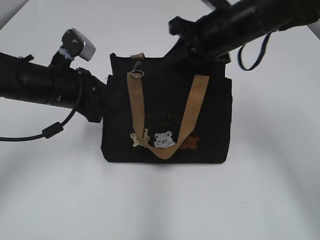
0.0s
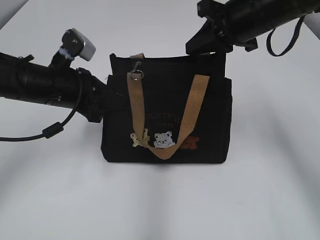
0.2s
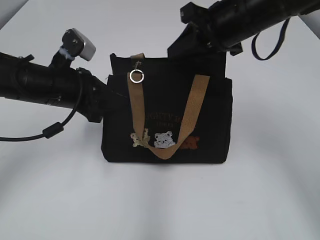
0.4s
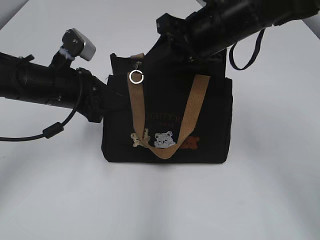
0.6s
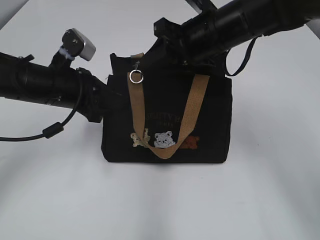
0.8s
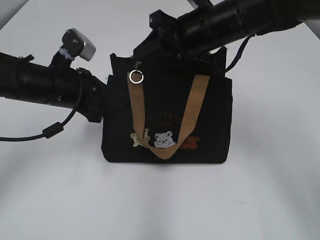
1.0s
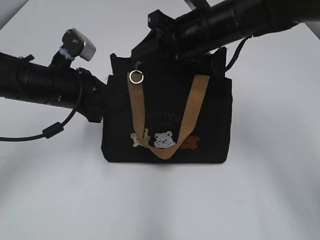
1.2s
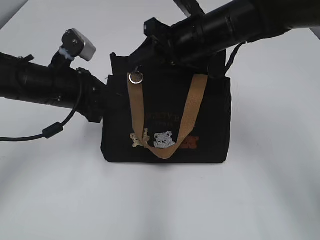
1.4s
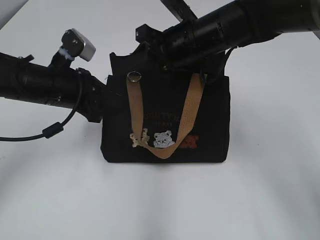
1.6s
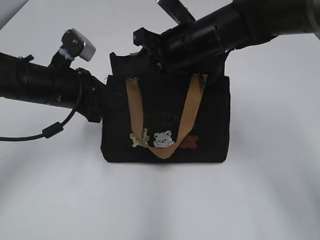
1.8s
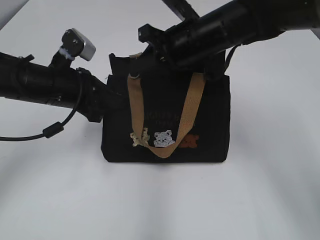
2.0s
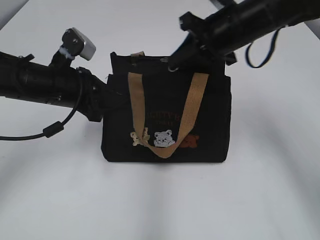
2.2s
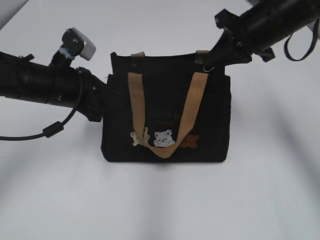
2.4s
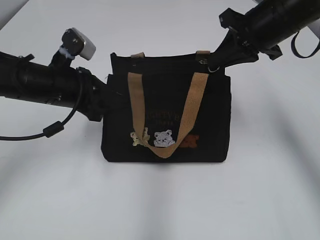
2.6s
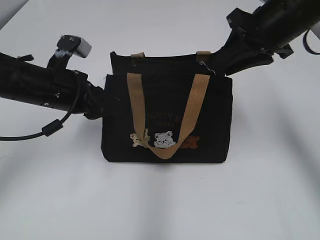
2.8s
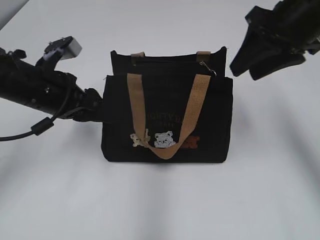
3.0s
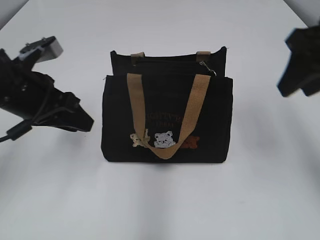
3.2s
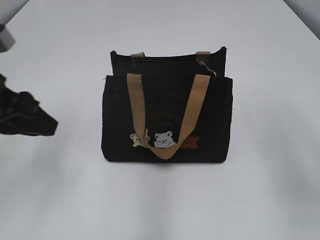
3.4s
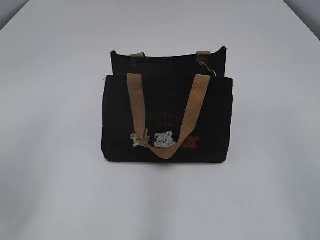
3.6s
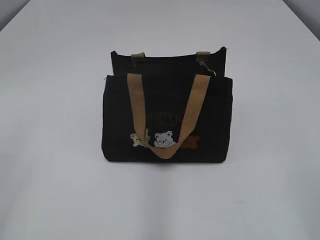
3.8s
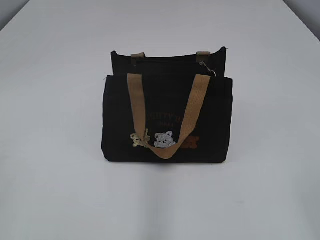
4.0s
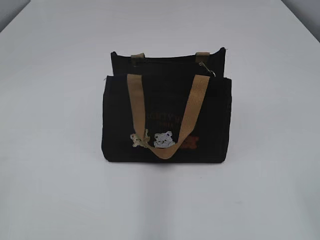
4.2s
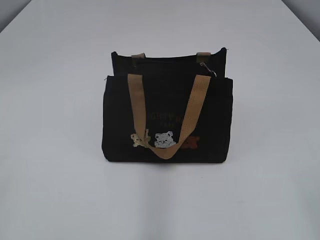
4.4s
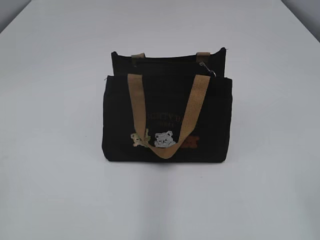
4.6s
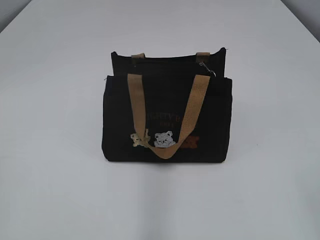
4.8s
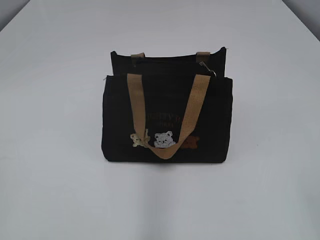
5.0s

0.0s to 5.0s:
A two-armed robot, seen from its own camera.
Step, 0.0s to 2.6s: Pull open the zipper with your right hand.
Step, 2.8s to 3.0s: Hold the bag with your left hand.
0.0s to 1.6s: The right gripper opens its fingers.
1.6s to 3.4s: The left gripper goes approximately 10 cm backward and upward, and opens its fingers. The right gripper heads to the right, backward and upward, covering about 25 cm, and closes and opens again.
3.4s to 5.0s: The left gripper travels backward and to the left by roughly 25 cm.
